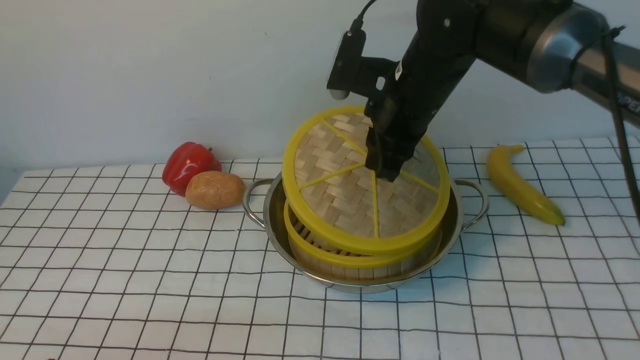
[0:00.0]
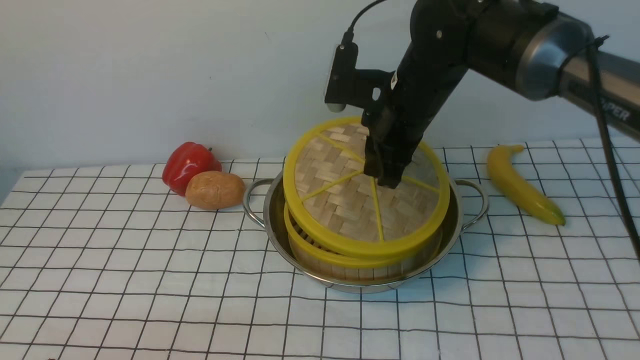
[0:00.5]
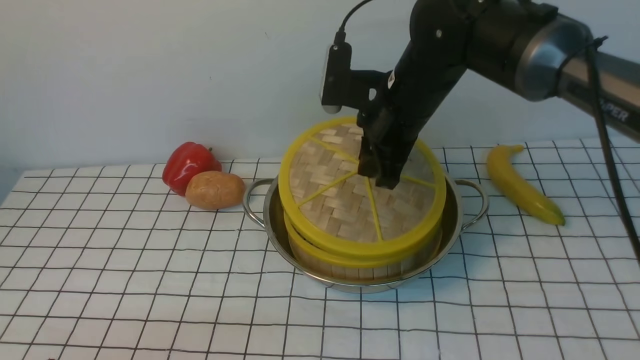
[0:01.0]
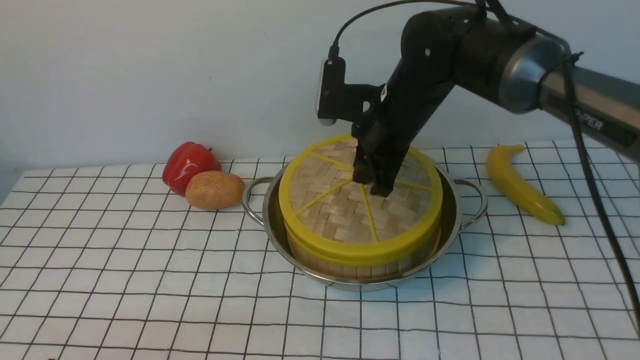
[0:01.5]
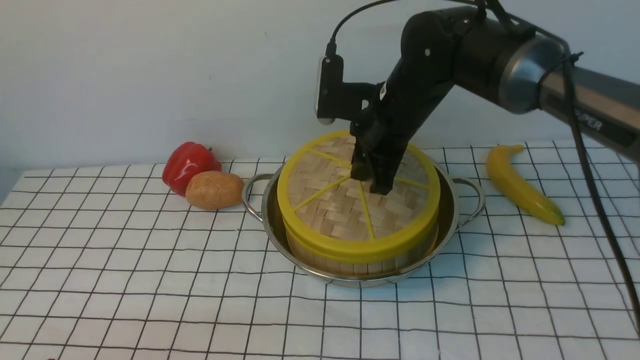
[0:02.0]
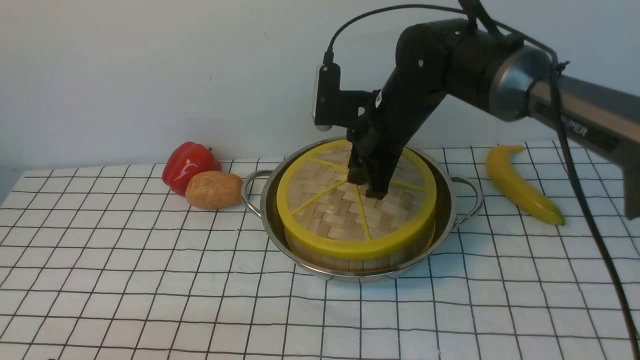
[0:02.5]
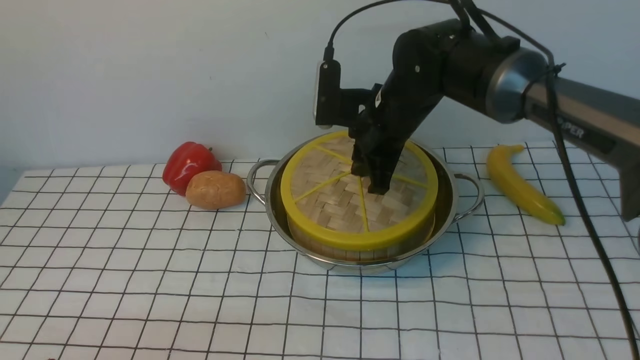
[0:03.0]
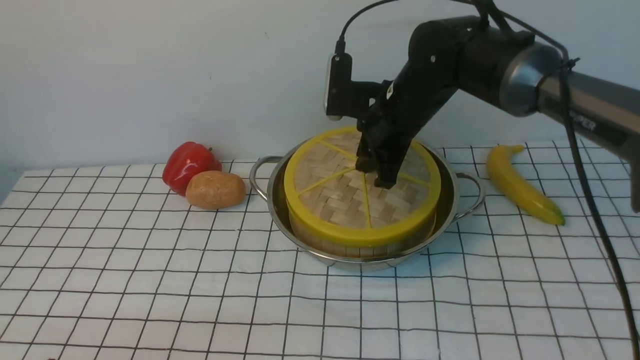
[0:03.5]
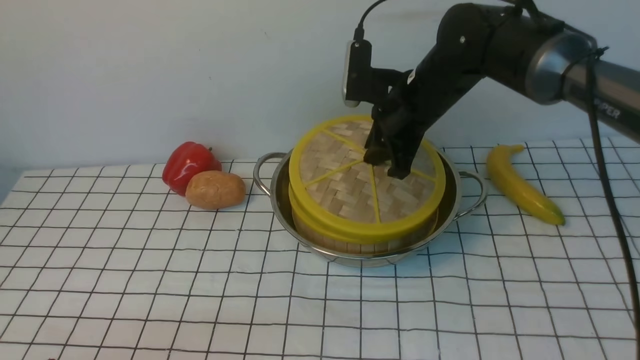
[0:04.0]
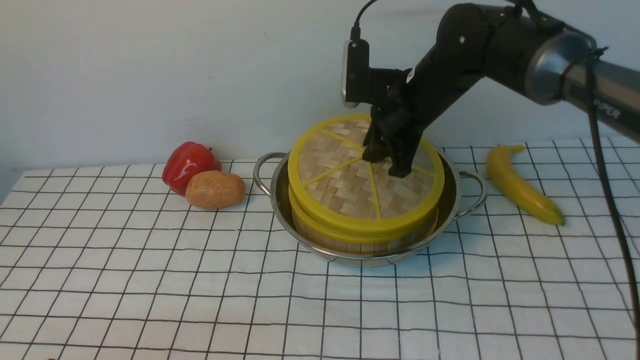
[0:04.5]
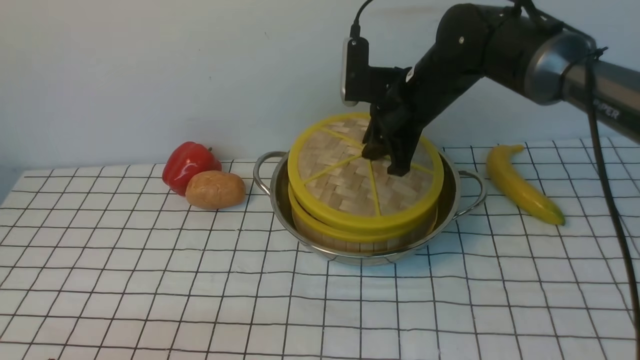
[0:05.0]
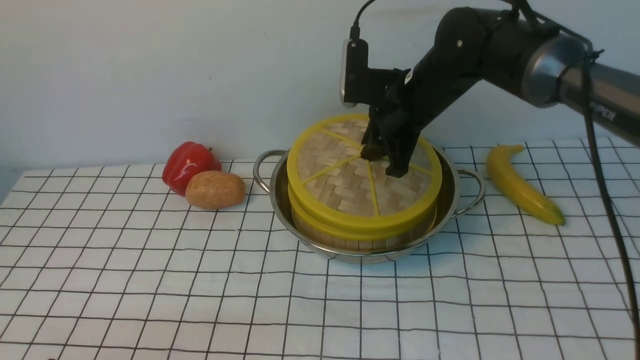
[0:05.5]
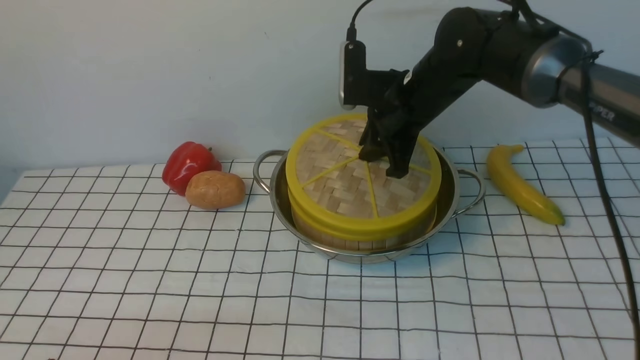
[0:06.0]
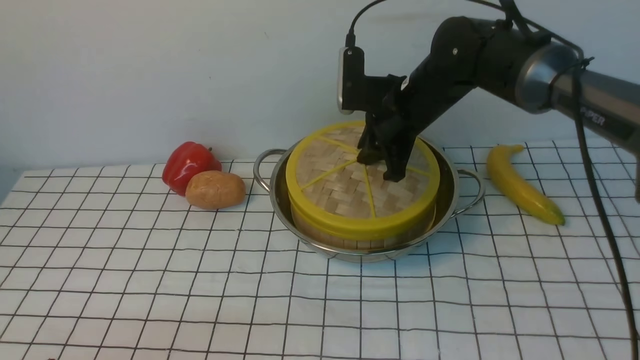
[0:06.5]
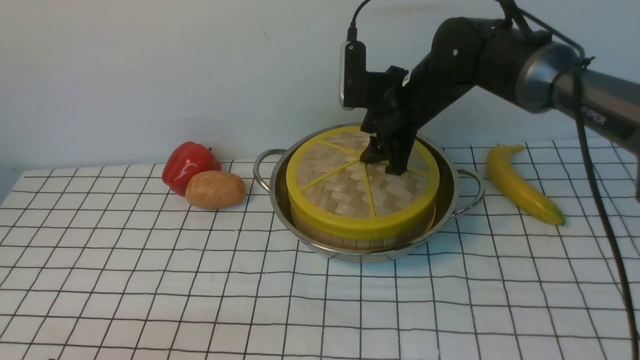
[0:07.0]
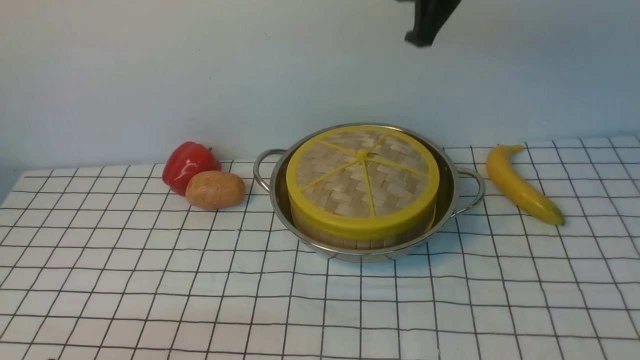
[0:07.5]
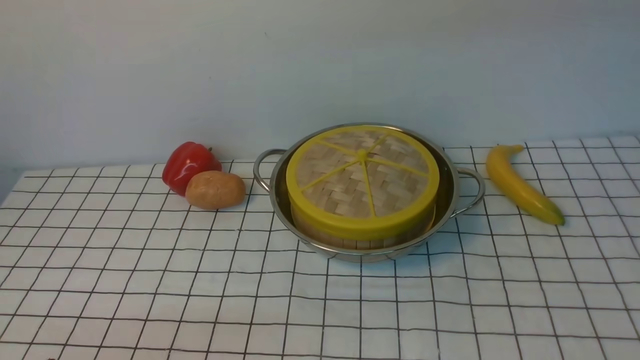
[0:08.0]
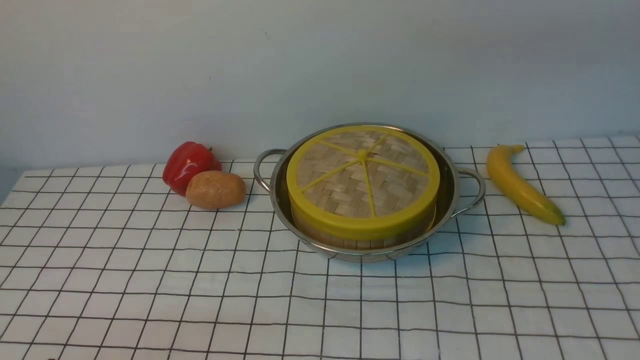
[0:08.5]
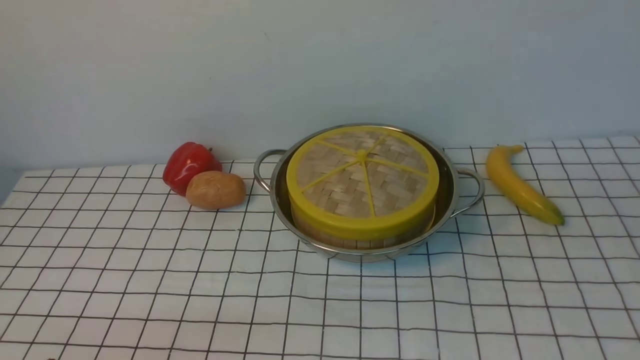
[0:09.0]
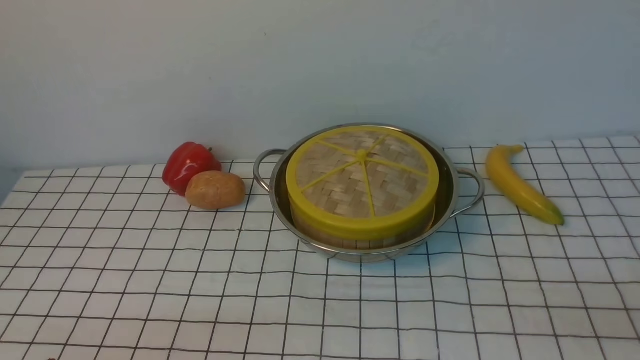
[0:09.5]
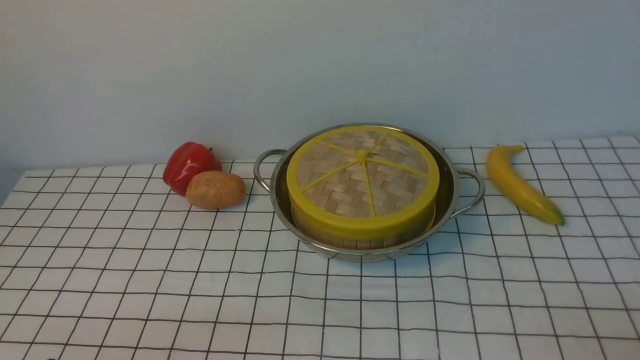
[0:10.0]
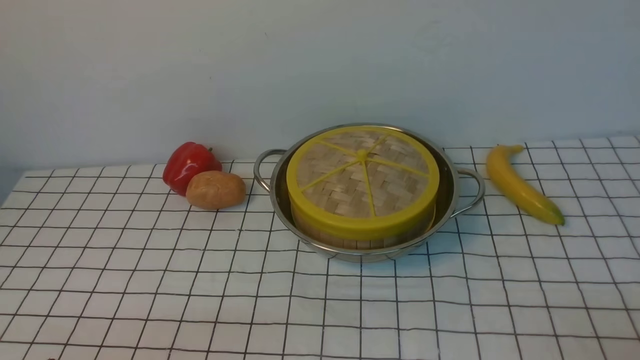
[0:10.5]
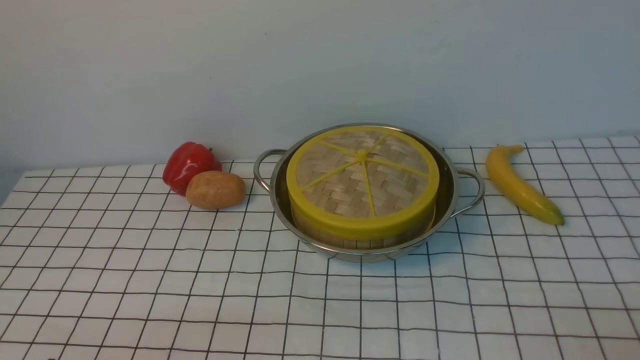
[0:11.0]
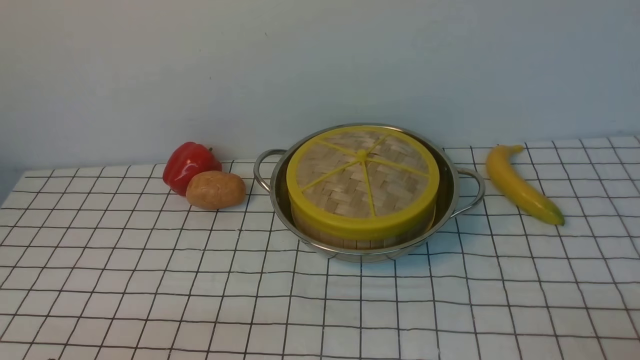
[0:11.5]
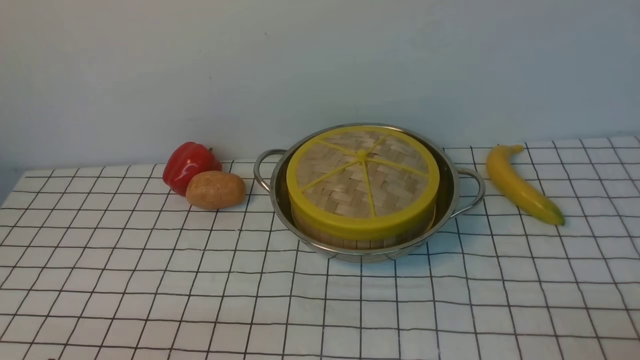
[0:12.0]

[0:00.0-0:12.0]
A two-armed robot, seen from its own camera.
Task of the whole recording: place the steamer in the pot on the white tablecloth, and put the lid on the steamer.
Step, 0:00.0 to 0:07.0: use the right arm to place the steamer lid on the steamer.
0:00.0 to 0:04.0: The grippers make only small movements.
0:04.0 to 0:06.0: Both grippers stay about where they are.
0:06.0 to 0:08.0: The right gripper goes about 25 cm upward, and closes up.

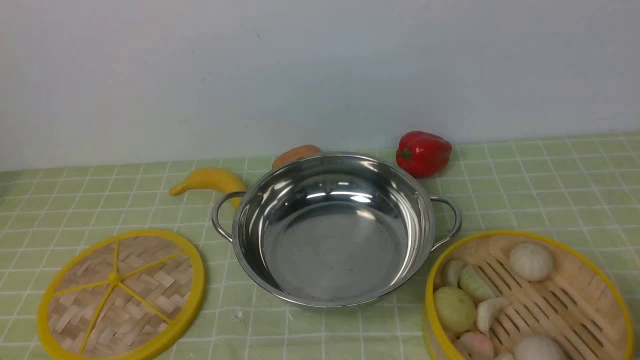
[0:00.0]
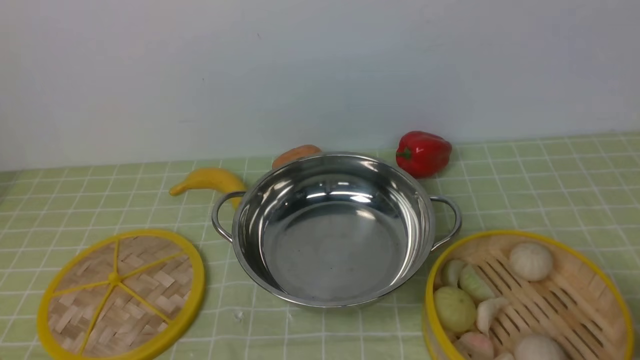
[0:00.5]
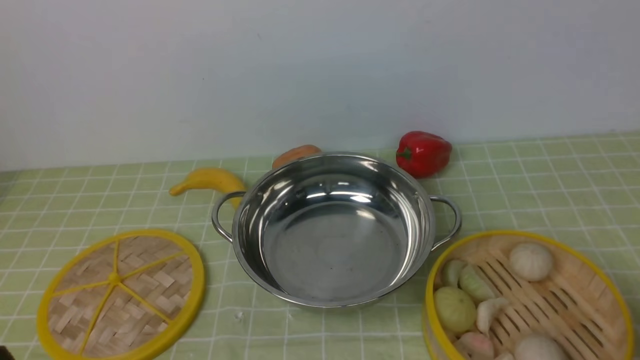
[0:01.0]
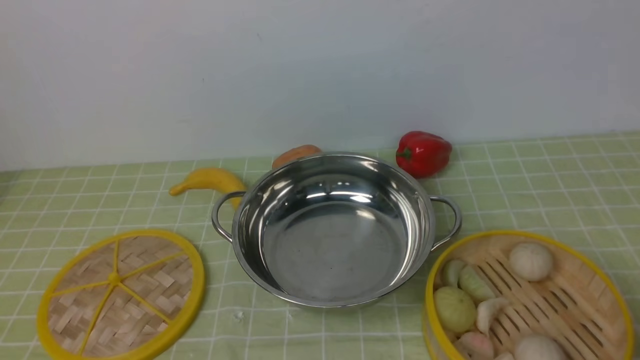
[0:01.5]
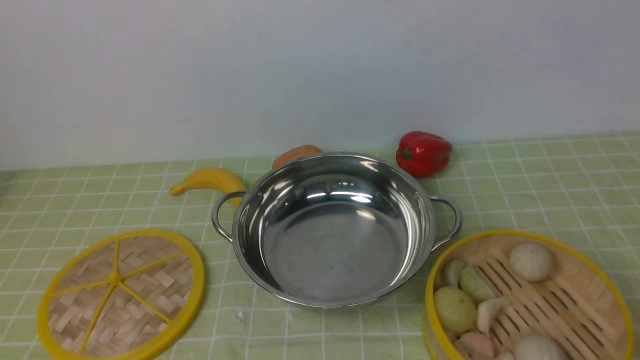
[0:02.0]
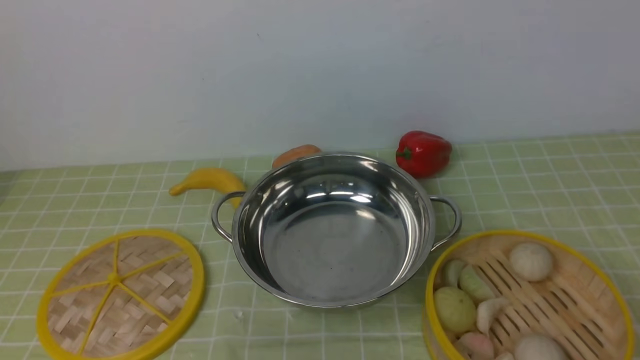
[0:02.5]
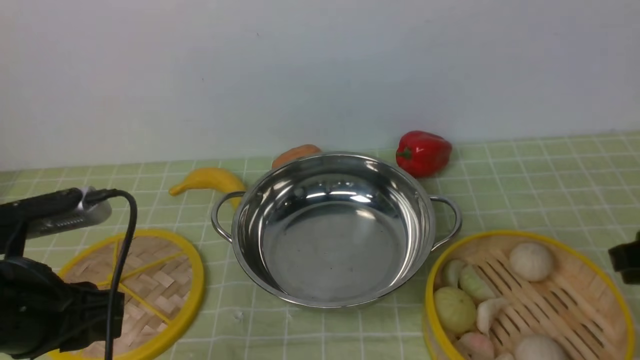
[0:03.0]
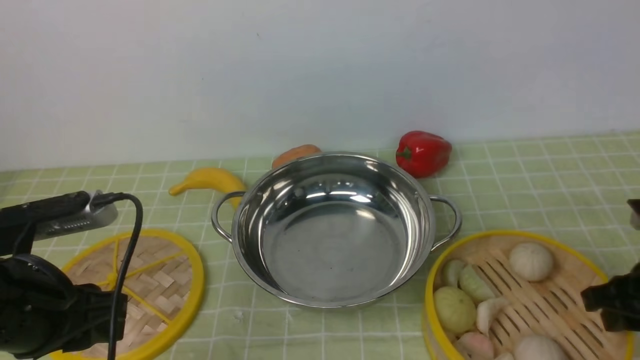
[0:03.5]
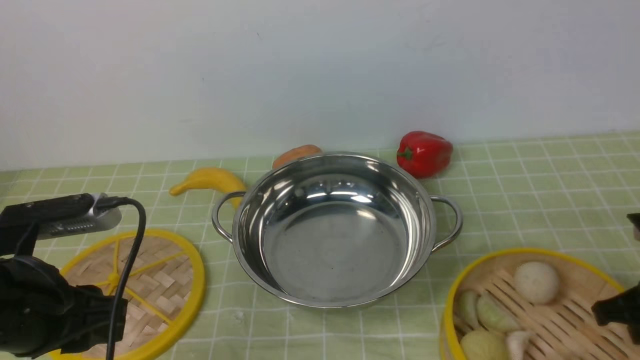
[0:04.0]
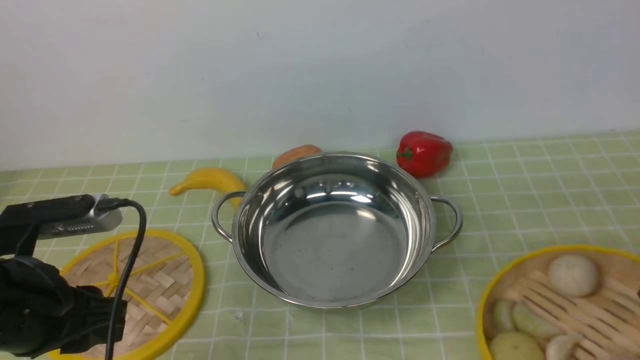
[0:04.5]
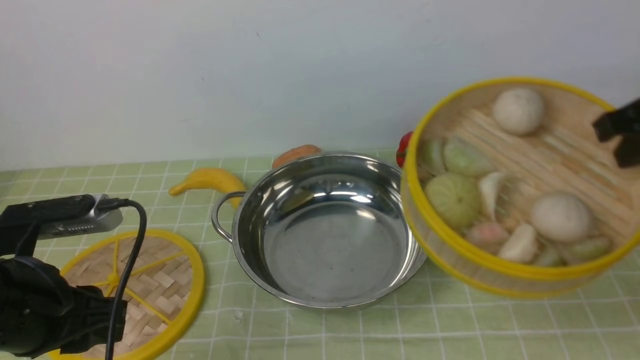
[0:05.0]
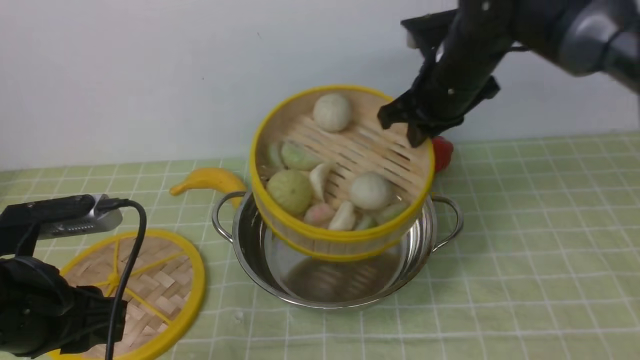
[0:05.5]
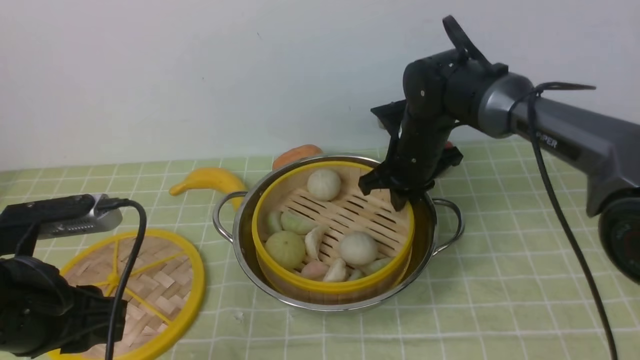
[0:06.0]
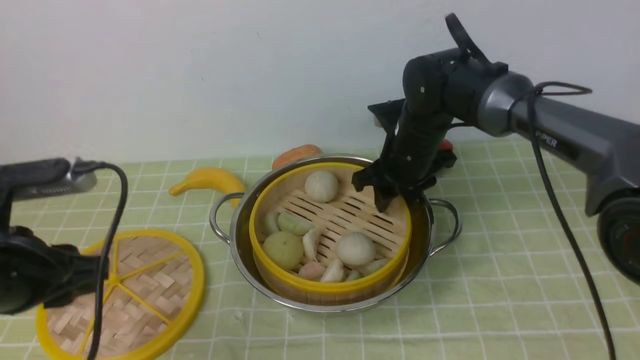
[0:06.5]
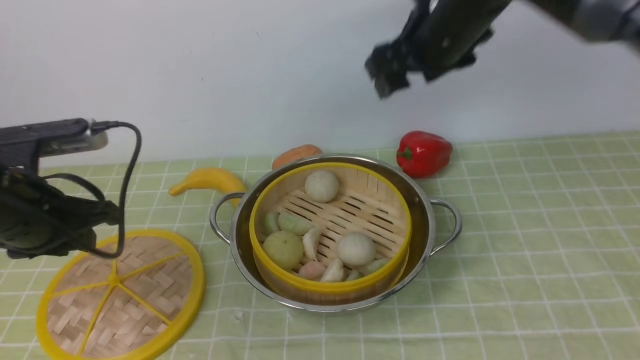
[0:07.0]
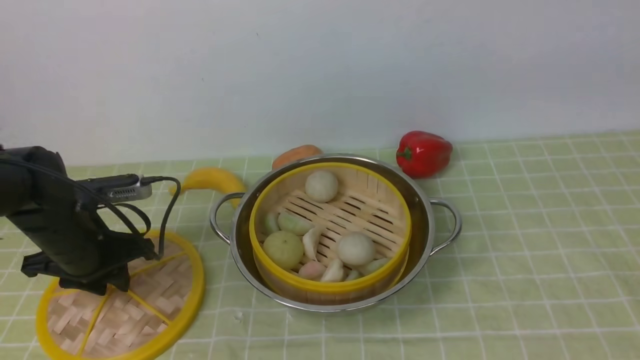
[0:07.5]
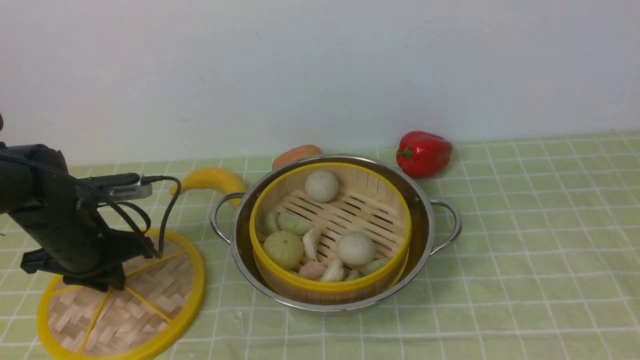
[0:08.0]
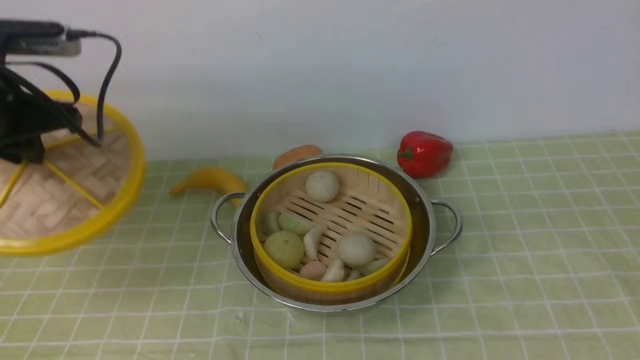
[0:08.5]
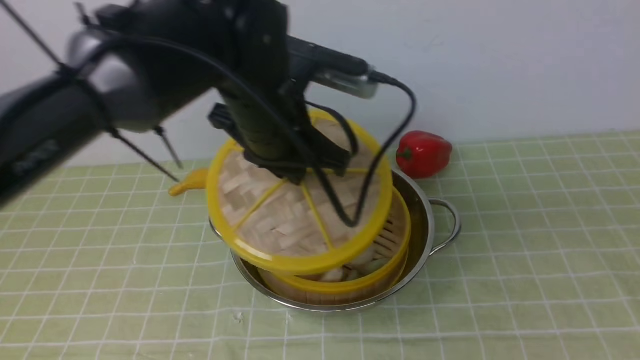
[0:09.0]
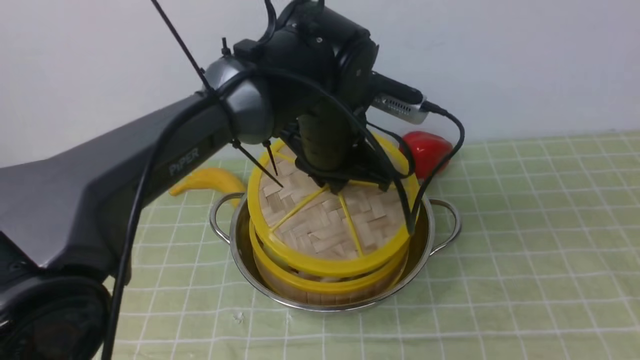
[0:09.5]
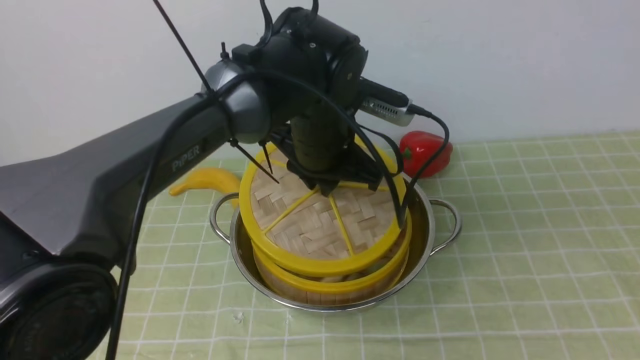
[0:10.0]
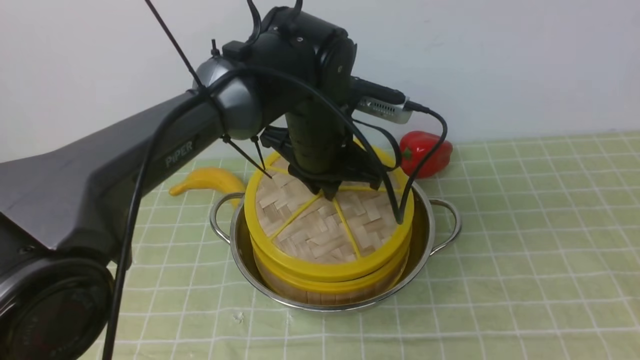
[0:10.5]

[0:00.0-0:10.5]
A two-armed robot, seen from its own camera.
Task of the whole recording: place the steamer in the pot on the green tablecloth, and put the lid on the steamer.
Step, 0:00.0 to 0:04.5: use the right arm to lift the steamer closest to it.
Step, 0:05.0 to 0:07.0: use the right arm to put the steamer into the iron steamer pot in the middle.
Step, 0:07.5 to 0:08.5: use the left arm to lift the lid of the steamer.
0:02.0 to 0:04.0: The right gripper heads forward and downward, covering about 25 cm, while the left gripper travels forward by roughly 15 cm.
0:04.0 to 0:06.5: The right gripper is displaced to the left and forward by roughly 30 cm, and opens up.
0:06.5 to 0:08.5: The right gripper shifts roughly 50 cm backward, upward and to the right. Meanwhile the left gripper goes roughly 15 cm forward.
0:08.5 to 0:10.5: The left gripper heads to the right, covering roughly 25 cm.
